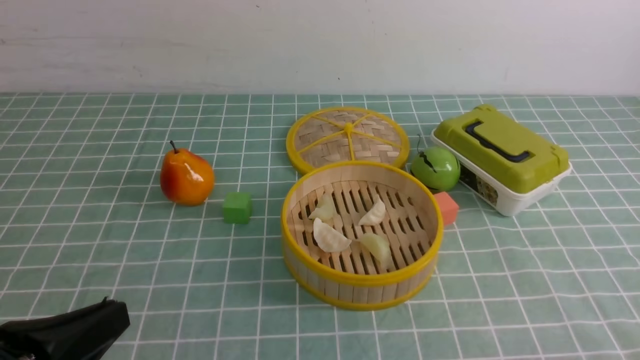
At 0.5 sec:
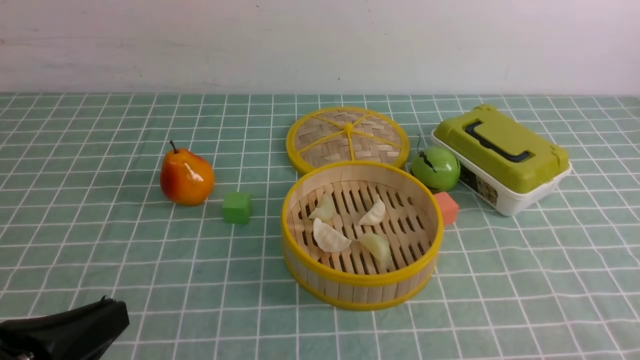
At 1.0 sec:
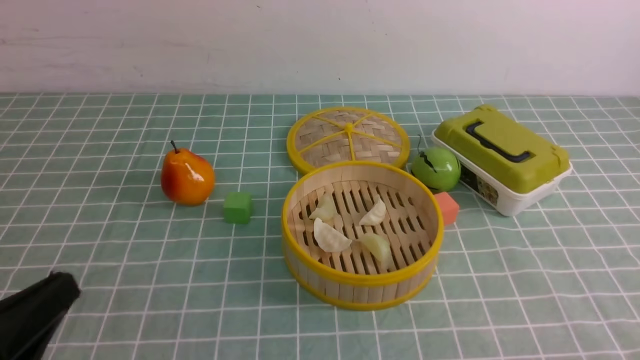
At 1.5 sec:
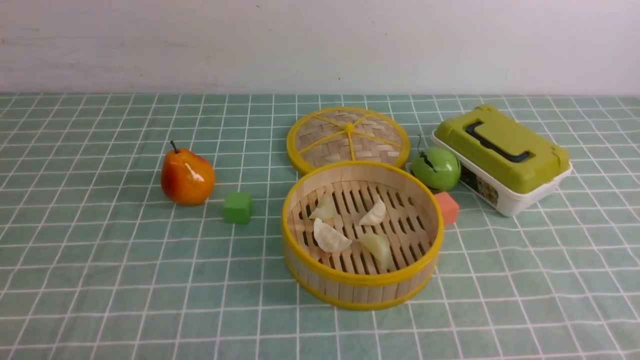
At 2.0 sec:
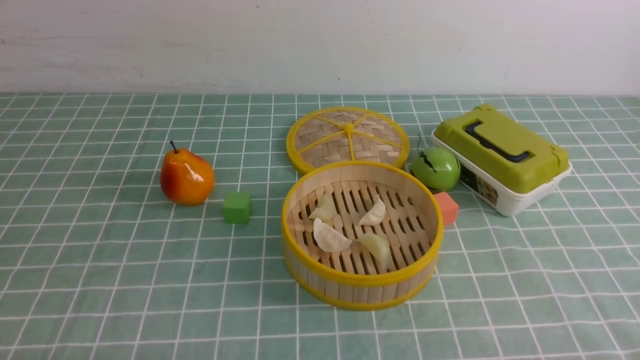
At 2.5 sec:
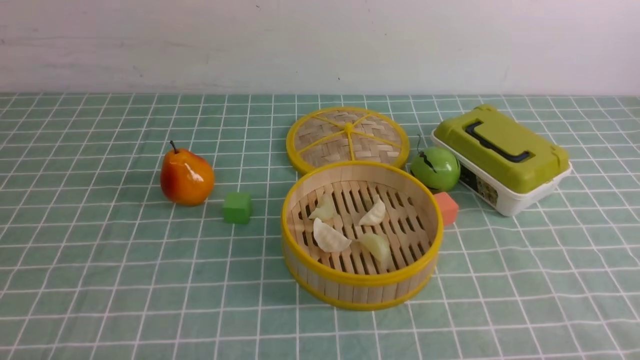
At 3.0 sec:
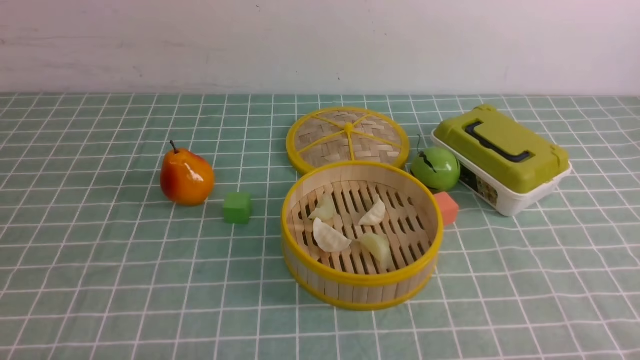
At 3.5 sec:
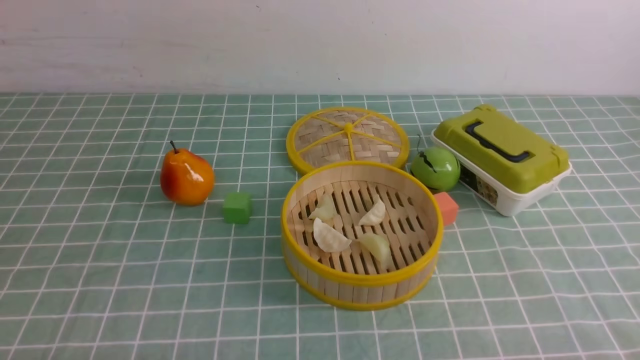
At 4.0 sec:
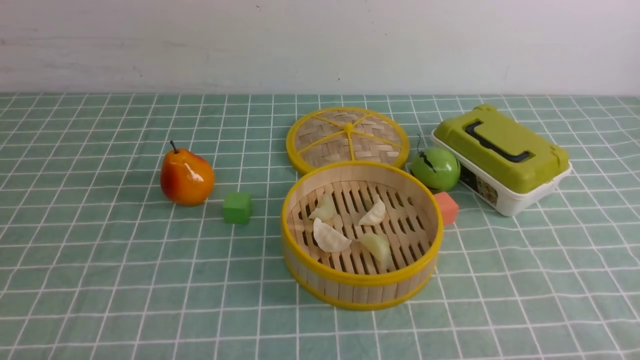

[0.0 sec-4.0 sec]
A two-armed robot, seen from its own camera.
Task of the whole recording: put the dumplings into the steamer on the table with the blue tablecloth.
0.0 sec to 2.0 sec: The left gripper travels downward and to the left by about 10 cm.
2.0 sec to 4.0 sec: Both grippers stay about where they are.
